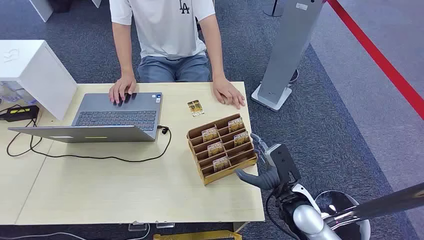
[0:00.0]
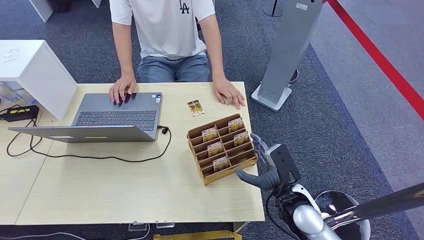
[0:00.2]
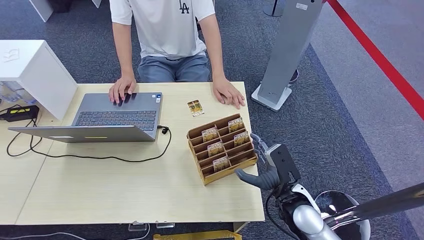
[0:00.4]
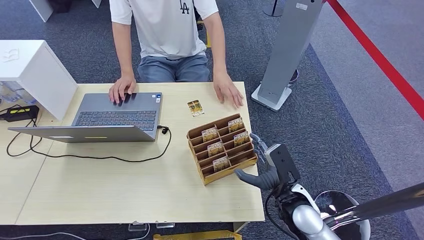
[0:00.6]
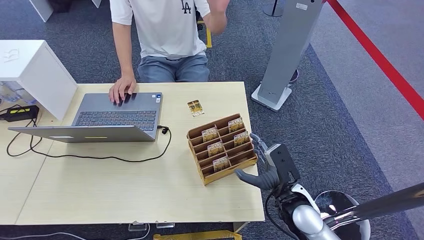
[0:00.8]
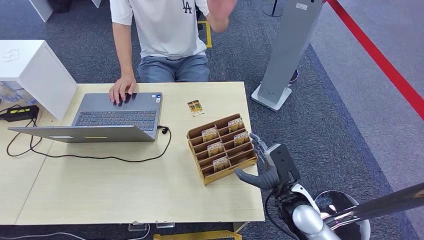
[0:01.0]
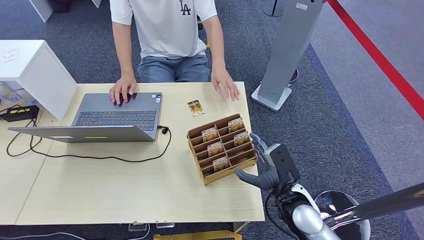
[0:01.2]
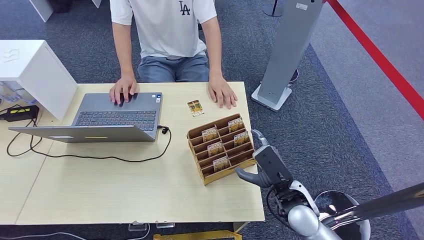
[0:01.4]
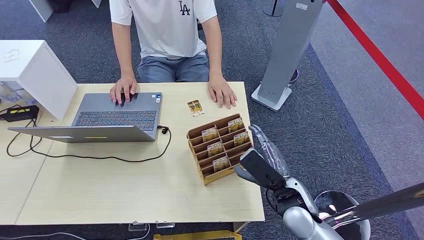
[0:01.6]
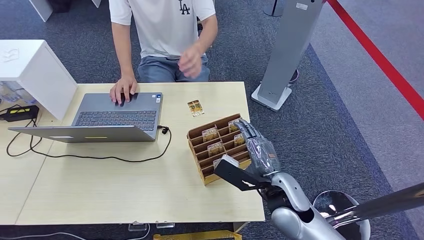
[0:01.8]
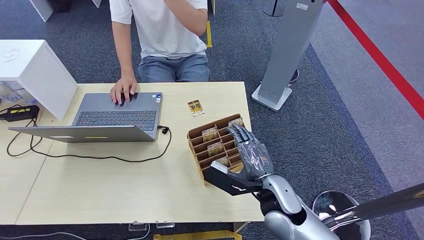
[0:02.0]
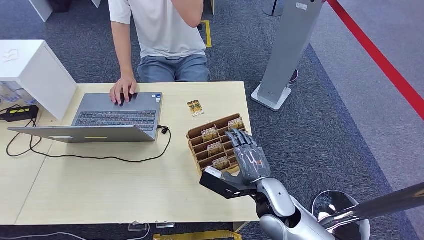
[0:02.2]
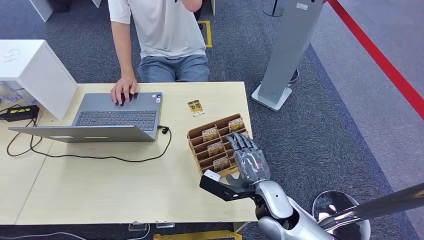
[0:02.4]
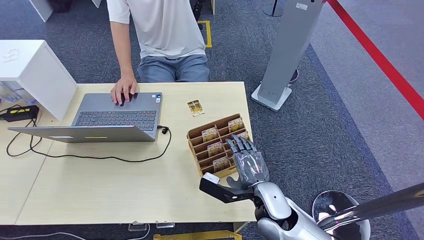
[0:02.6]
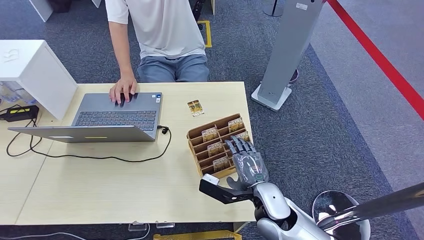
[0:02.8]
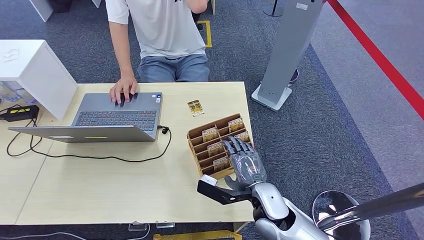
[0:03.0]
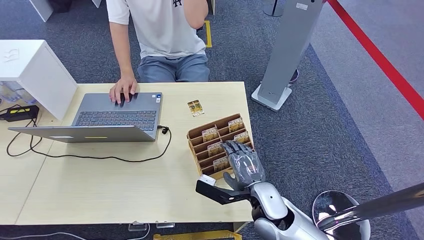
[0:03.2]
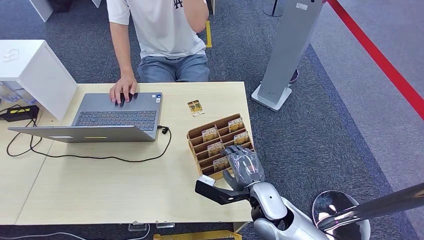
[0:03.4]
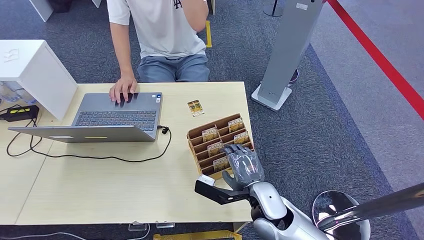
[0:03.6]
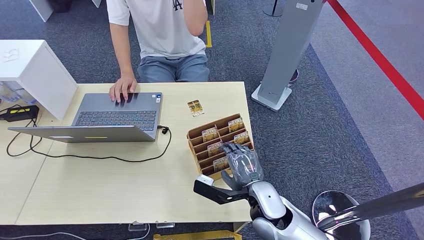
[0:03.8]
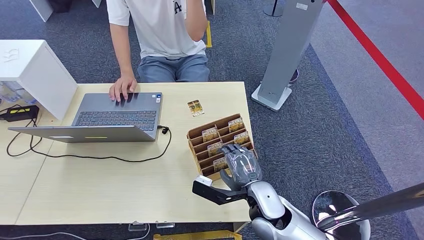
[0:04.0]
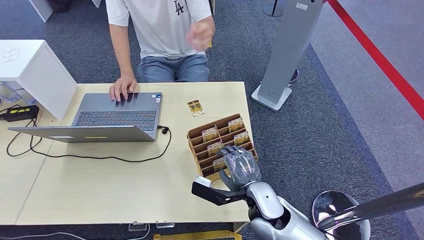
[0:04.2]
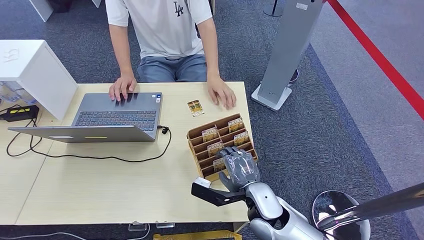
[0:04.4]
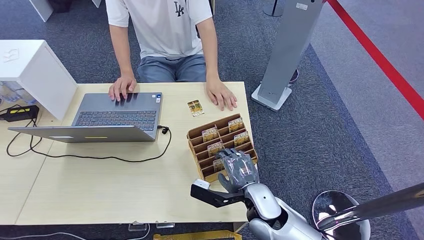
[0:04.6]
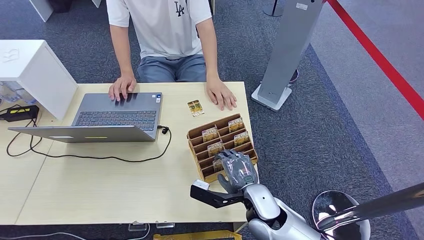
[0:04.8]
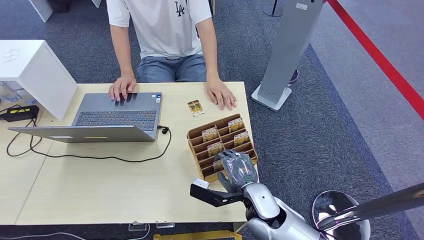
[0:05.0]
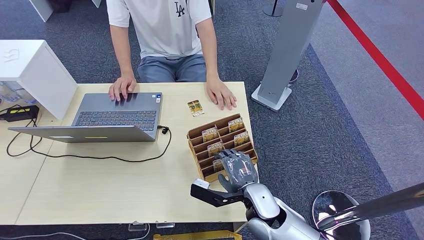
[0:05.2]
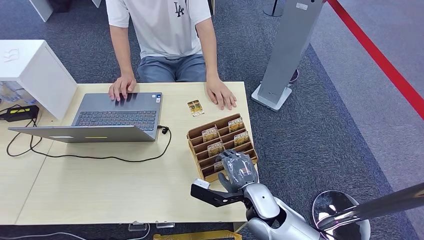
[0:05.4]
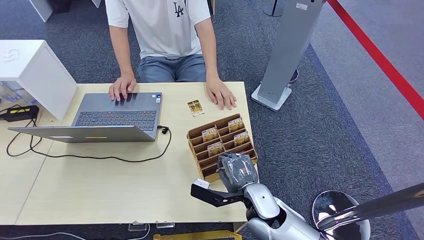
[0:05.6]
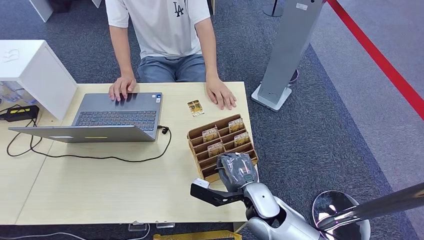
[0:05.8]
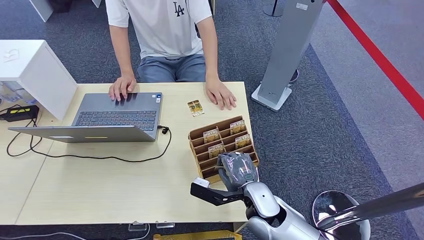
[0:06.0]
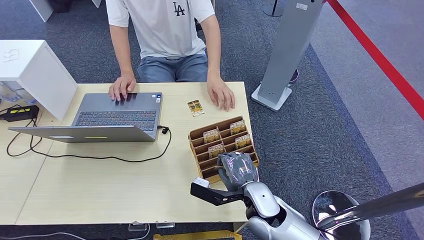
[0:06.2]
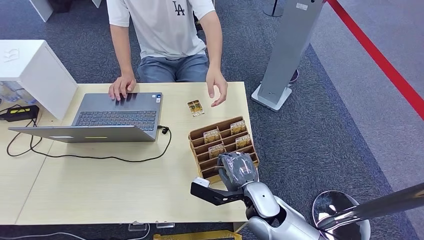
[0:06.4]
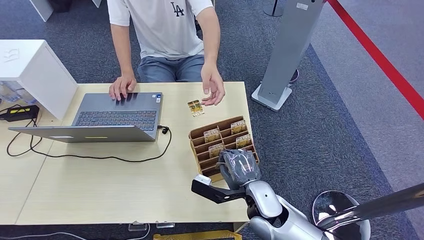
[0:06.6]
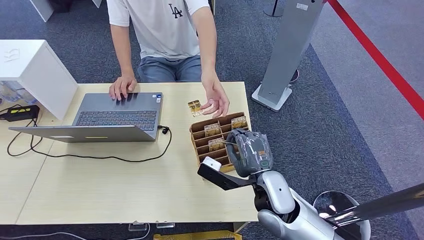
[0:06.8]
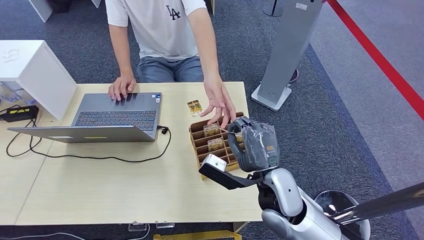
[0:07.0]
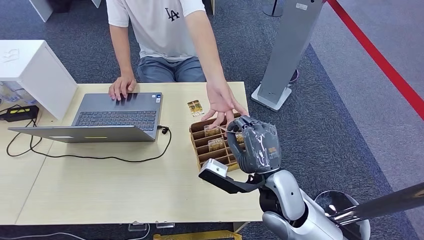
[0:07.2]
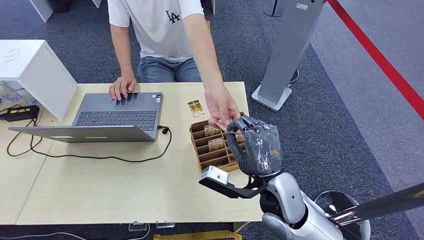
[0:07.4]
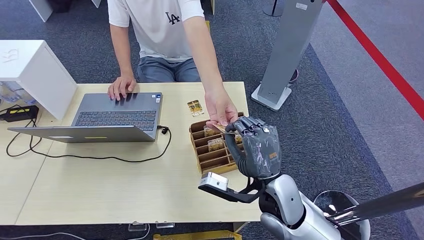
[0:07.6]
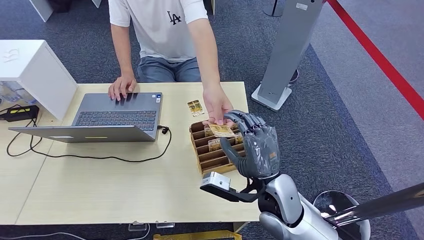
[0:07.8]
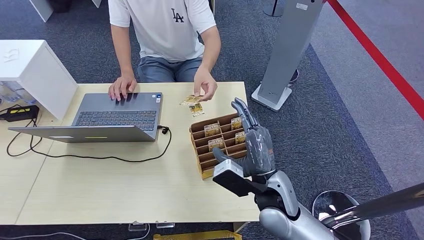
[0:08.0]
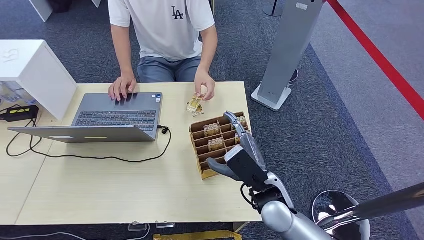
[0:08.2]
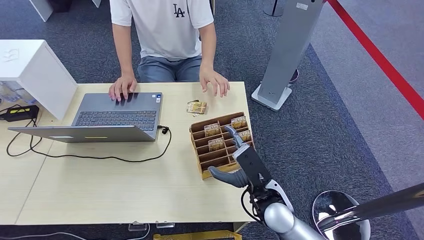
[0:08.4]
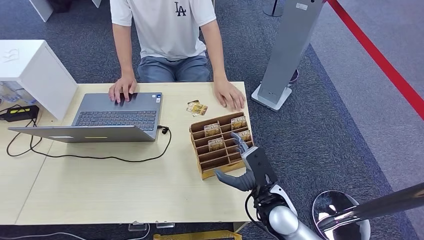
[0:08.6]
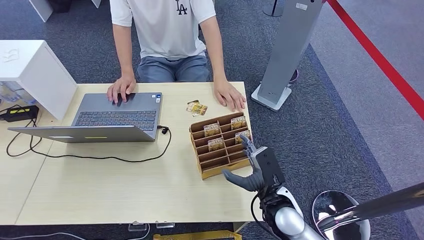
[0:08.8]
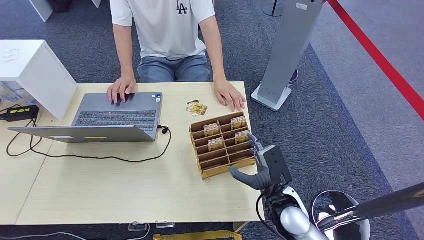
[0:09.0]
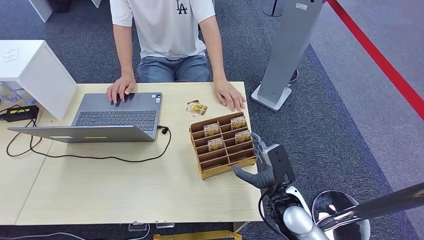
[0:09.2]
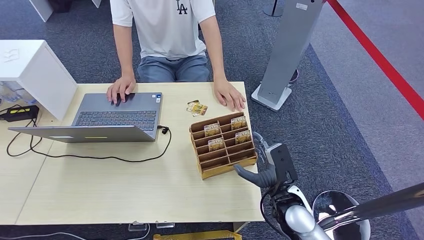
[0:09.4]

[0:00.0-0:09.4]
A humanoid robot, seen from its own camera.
Step, 0:00.0 to 0:06.0: Pick up the room card from the card holder.
Step, 0:06.2 to 0:09.4: Hand the room card to the target.
0:01.6 to 0:03.2: The right hand moves to the left, roughly 5 cm.
0:03.2 to 0:04.8: The hands make only small movements.
0:04.8 to 0:06.2: Both hands stay put.
0:06.2 to 0:07.8: The right hand goes some 10 cm upward.
0:07.8 to 0:09.4: The right hand travels downward and to the right by approximately 10 cm.

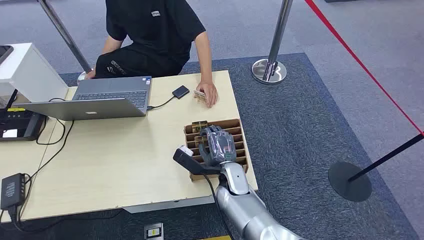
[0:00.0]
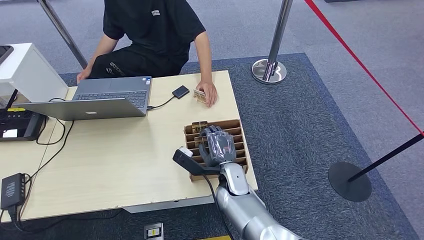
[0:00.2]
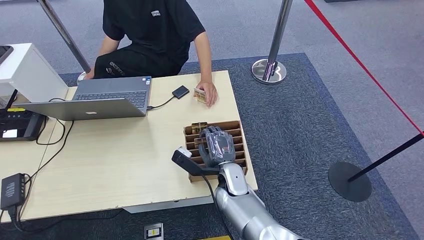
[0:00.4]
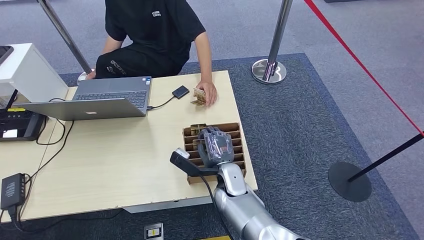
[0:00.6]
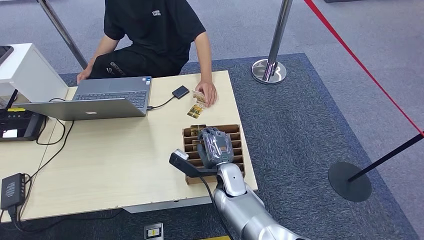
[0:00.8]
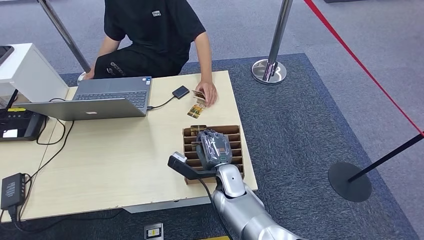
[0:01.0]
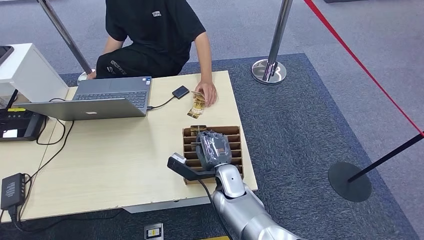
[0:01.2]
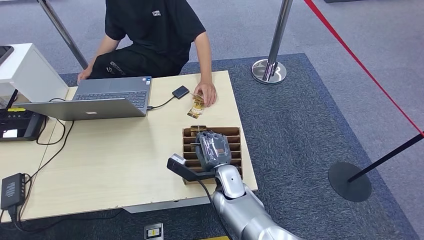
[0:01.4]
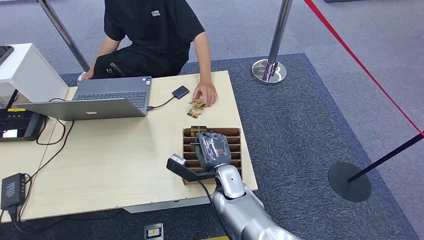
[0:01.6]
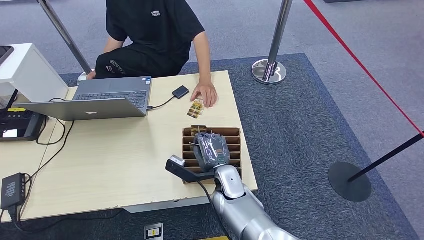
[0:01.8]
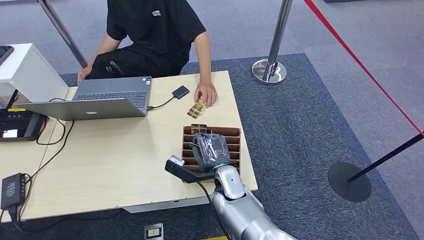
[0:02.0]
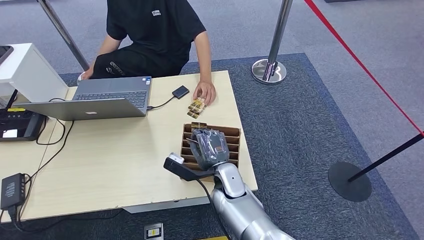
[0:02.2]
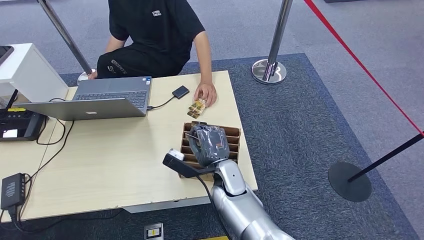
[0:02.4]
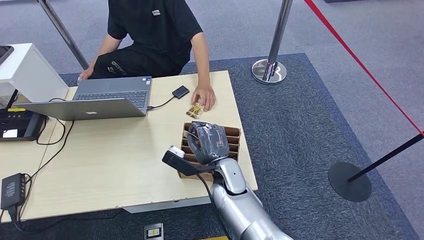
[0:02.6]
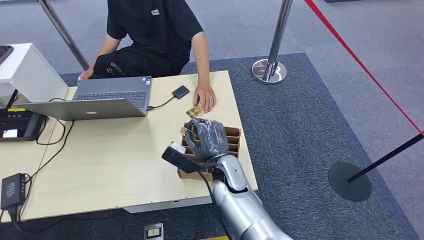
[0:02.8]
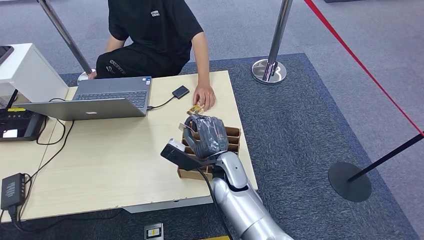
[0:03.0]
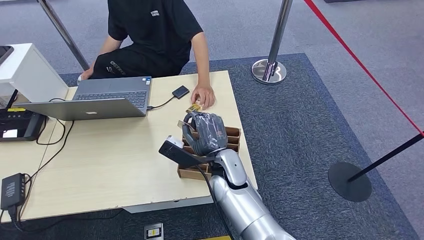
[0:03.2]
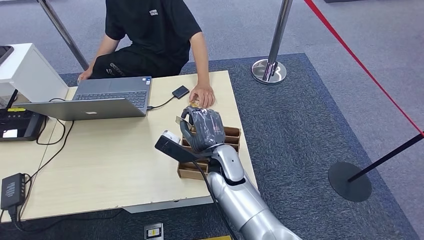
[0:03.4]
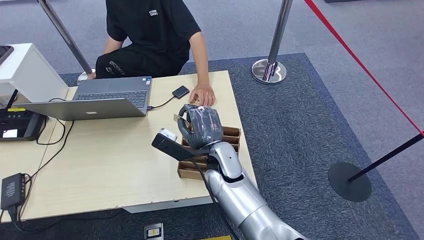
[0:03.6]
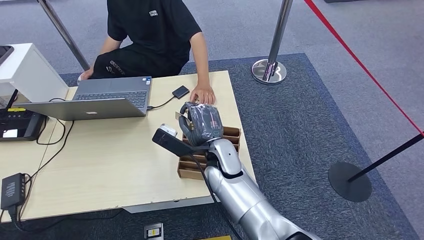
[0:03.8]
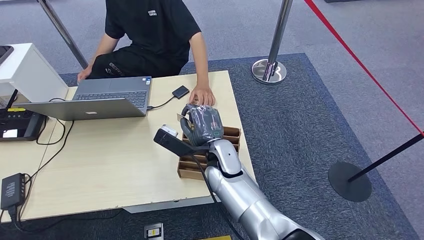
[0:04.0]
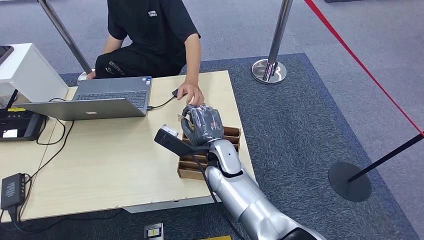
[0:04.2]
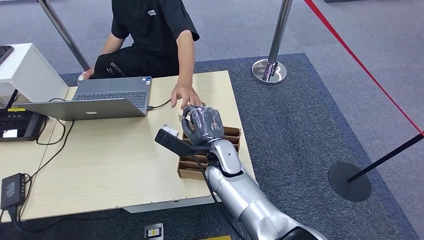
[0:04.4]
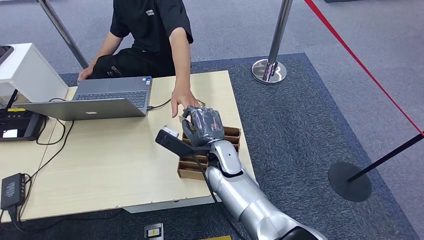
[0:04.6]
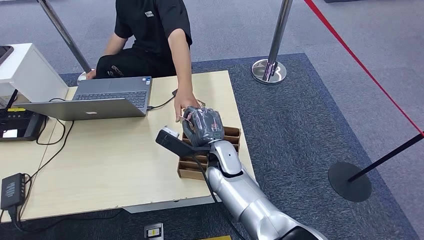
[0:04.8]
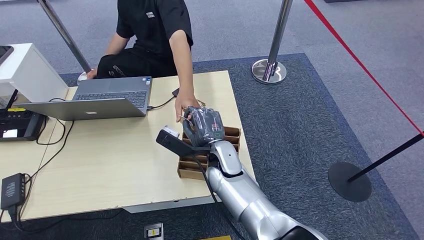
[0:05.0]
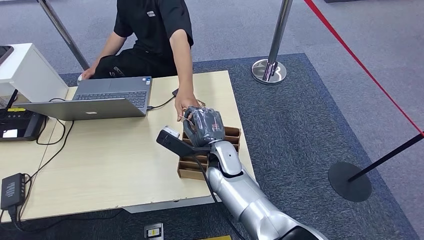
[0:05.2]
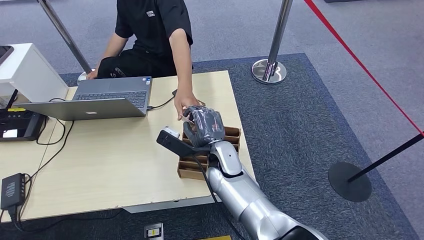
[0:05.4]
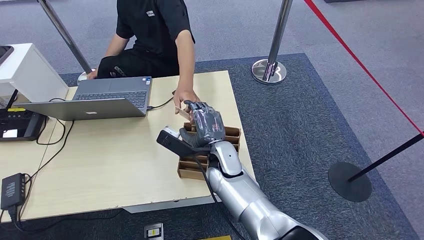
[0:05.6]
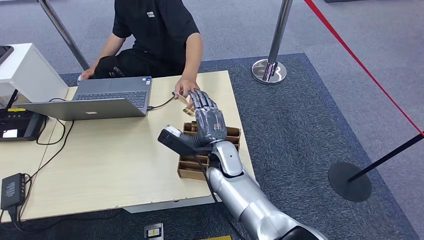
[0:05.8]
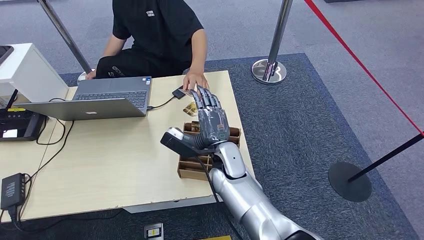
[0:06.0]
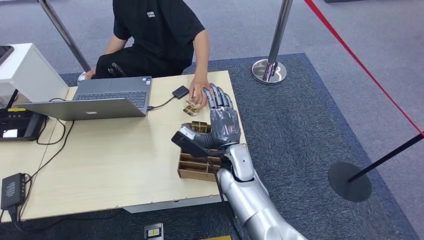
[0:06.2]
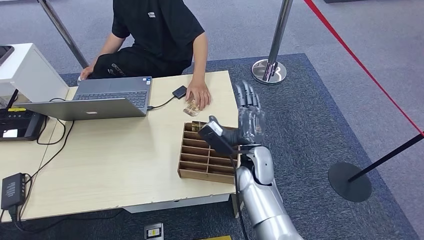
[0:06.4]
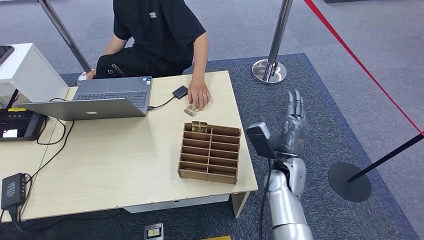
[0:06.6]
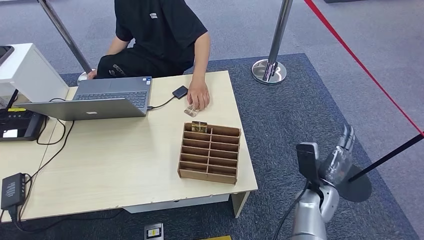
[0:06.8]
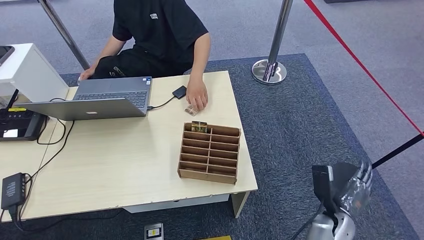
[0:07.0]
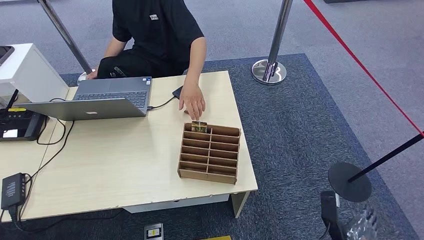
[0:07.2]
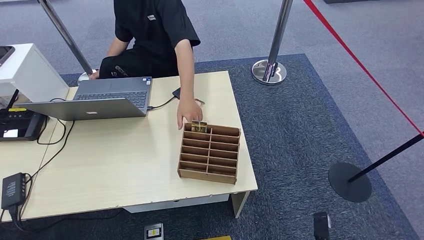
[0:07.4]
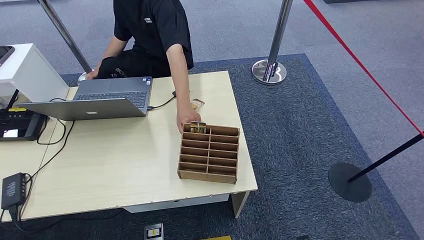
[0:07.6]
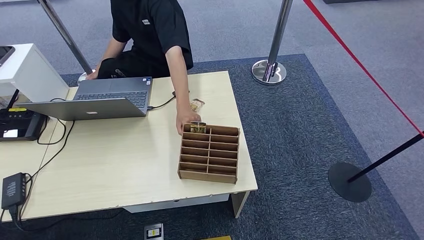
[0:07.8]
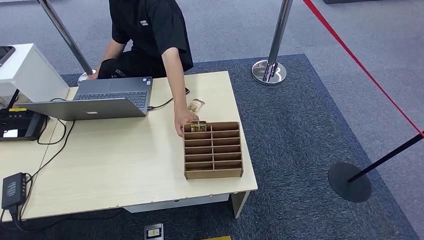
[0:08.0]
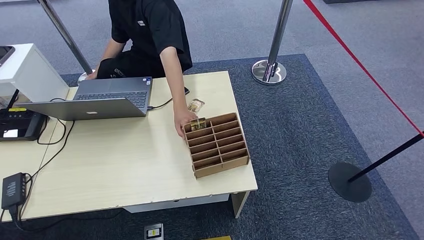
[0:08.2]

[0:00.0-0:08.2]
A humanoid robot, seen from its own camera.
Step, 0:00.0 to 0:02.4: Pick up the room card from the card holder.
Step, 0:02.6 to 0:08.2: Hand the room card to the target.
0:01.6 to 0:03.2: The right hand shifts about 5 cm upward.
0:03.2 to 0:05.0: The hands move only a little.
0:05.0 to 0:06.6: The right hand shifts roughly 15 cm to the right.
0:06.6 to 0:08.2: The right hand travels backward and downward by approximately 35 cm.
